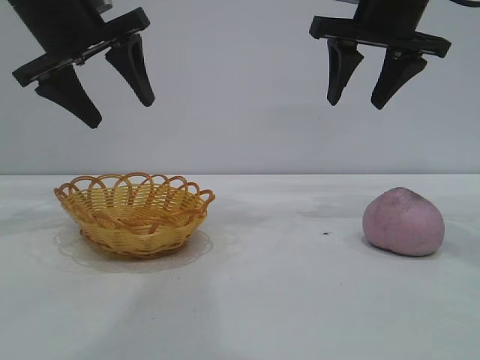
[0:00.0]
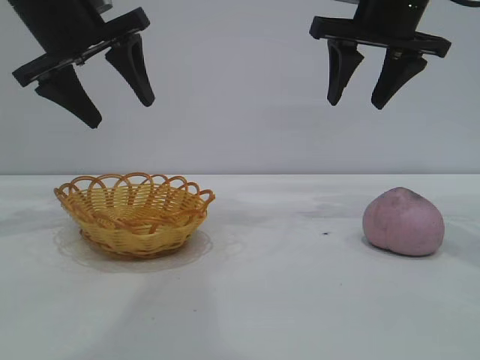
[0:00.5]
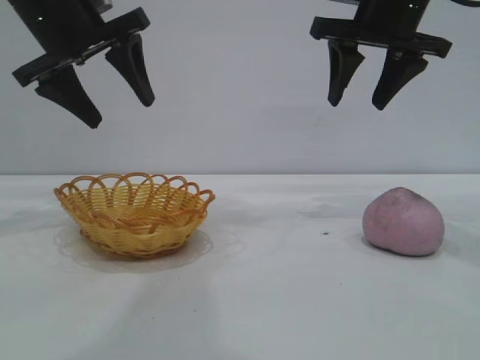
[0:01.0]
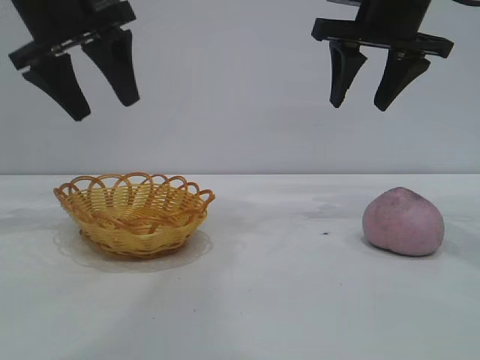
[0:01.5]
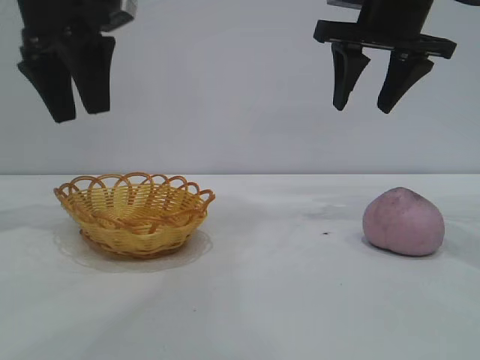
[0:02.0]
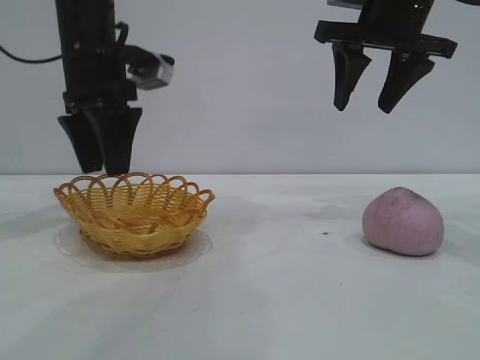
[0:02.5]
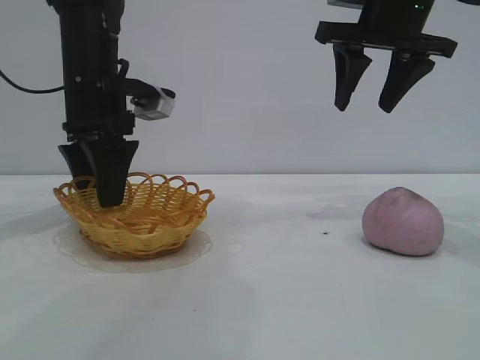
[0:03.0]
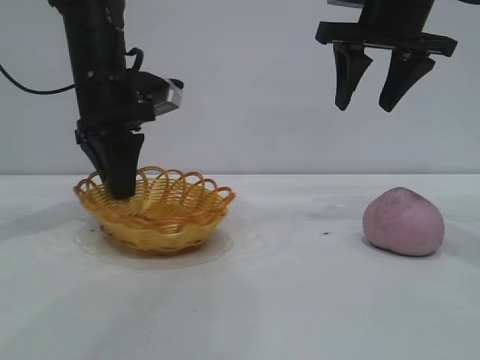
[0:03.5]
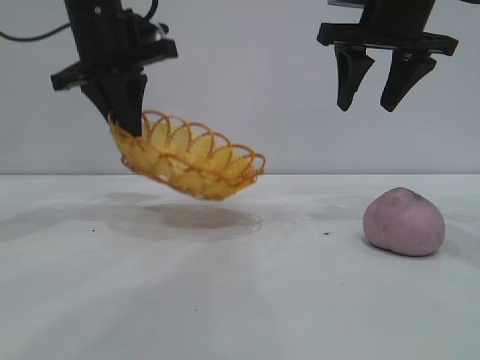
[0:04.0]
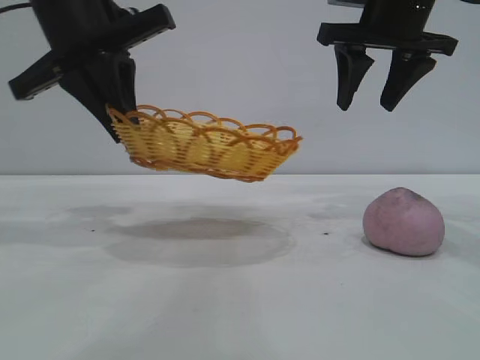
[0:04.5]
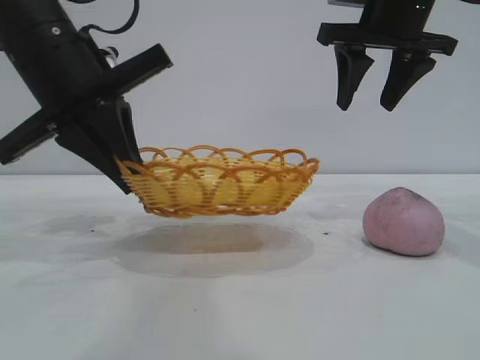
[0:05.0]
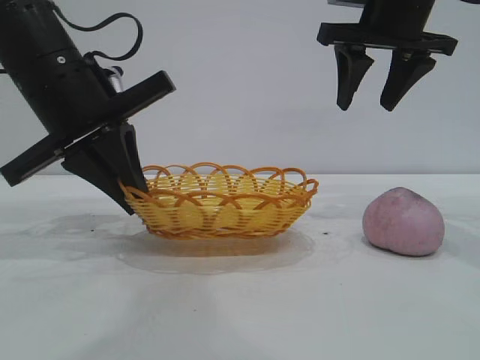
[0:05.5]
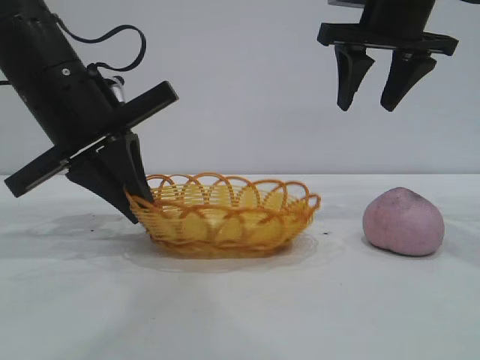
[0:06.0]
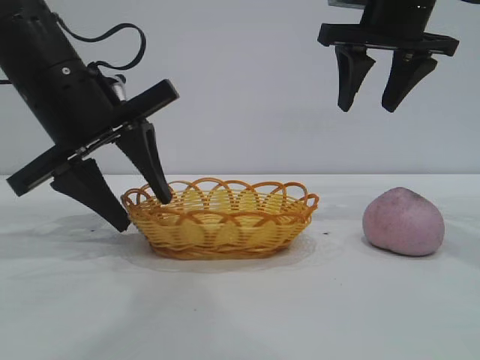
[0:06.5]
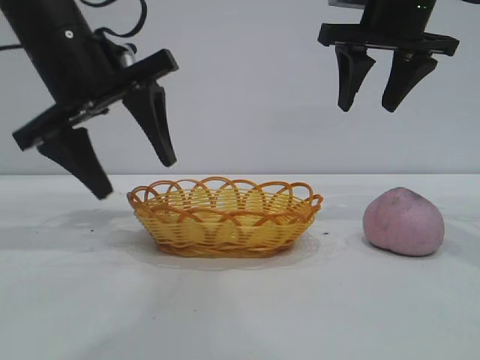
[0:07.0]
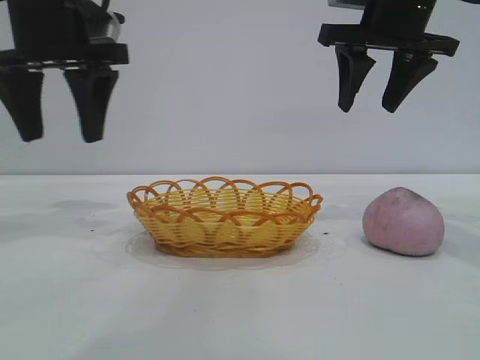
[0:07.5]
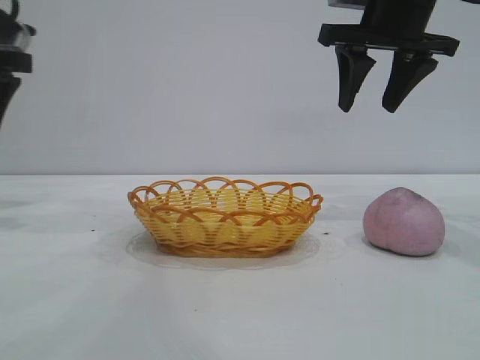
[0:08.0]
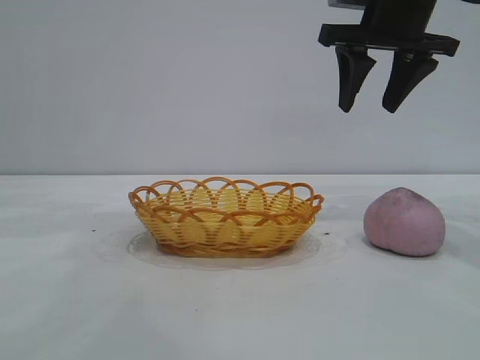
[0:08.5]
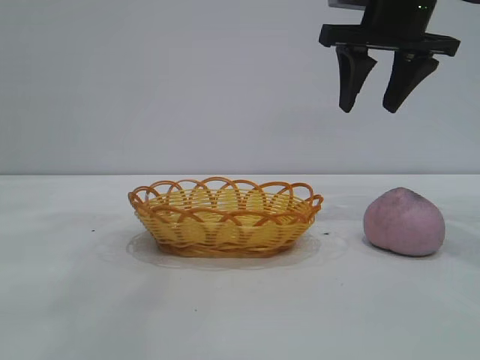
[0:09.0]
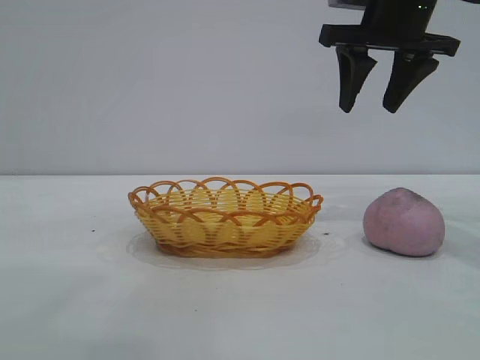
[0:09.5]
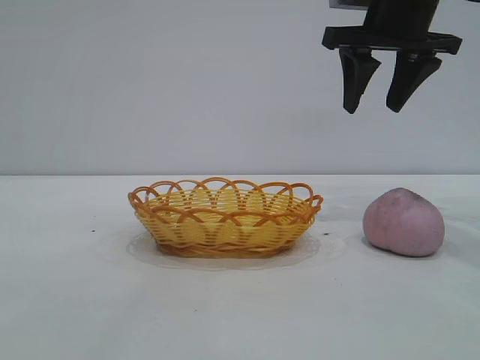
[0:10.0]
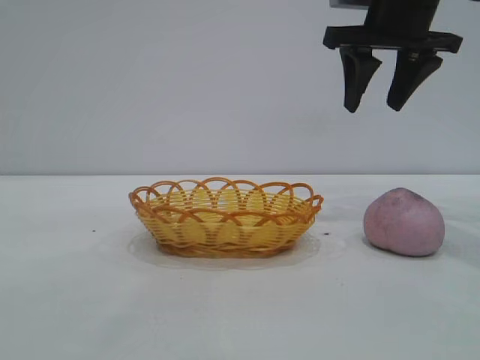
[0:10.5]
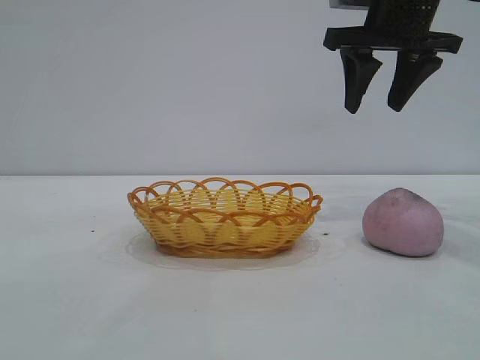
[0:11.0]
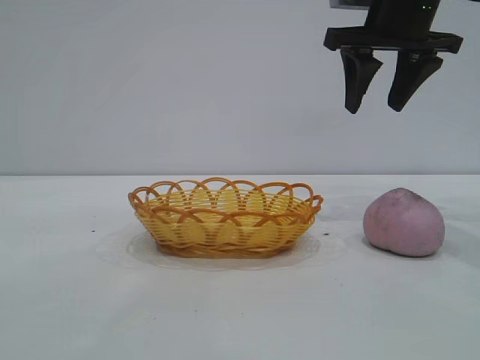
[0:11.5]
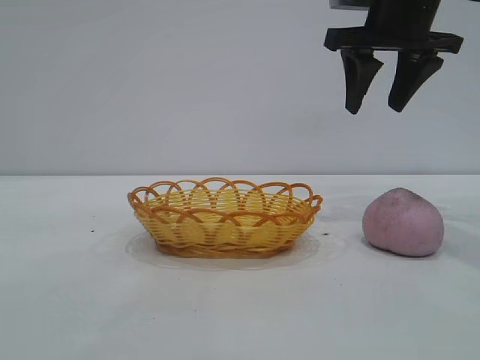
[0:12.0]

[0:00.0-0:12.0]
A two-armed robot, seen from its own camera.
Task of the whole recording: pick up the peach and put it into the basket.
Step, 0:00.0 to 0:07.0: Move the basket to the center of view.

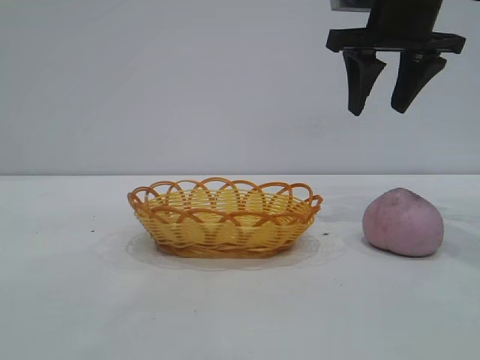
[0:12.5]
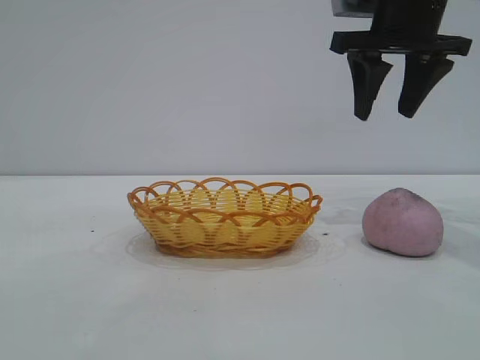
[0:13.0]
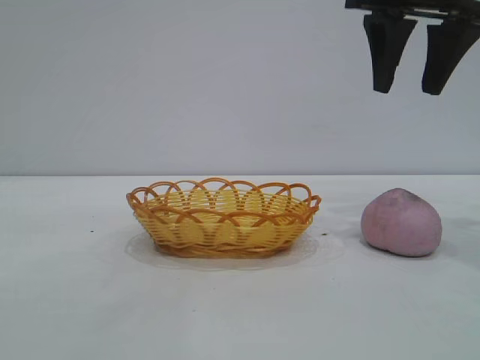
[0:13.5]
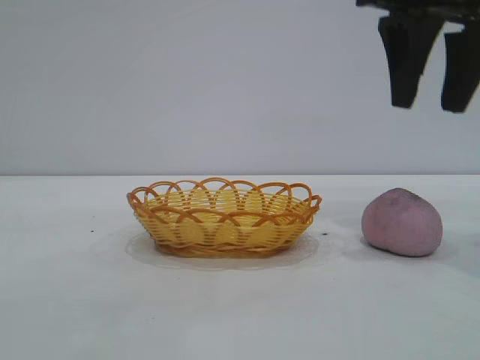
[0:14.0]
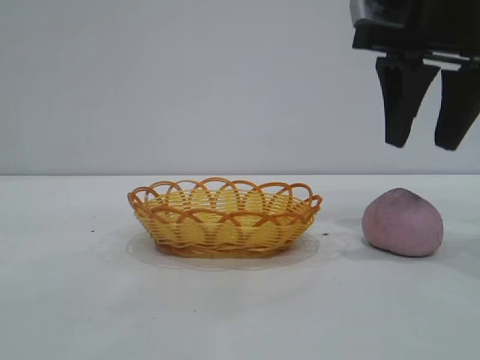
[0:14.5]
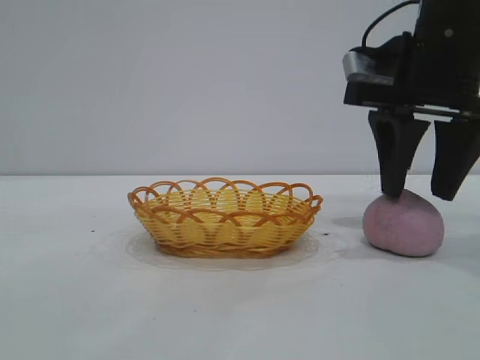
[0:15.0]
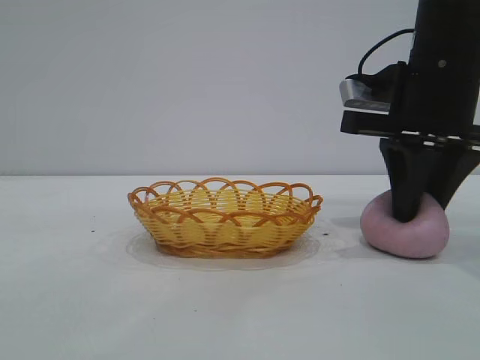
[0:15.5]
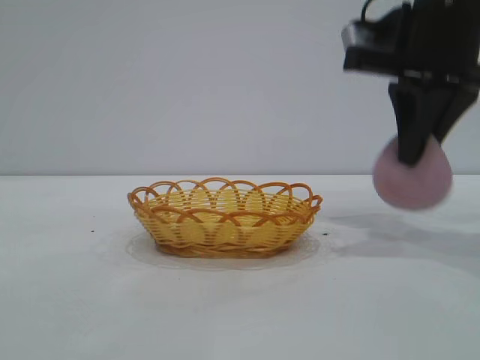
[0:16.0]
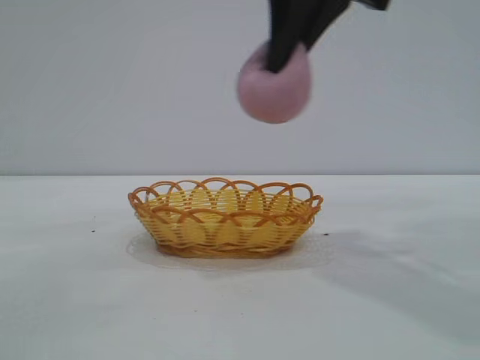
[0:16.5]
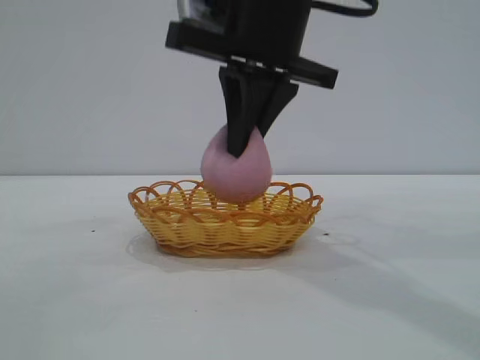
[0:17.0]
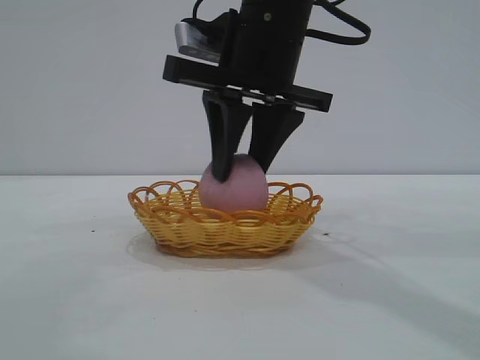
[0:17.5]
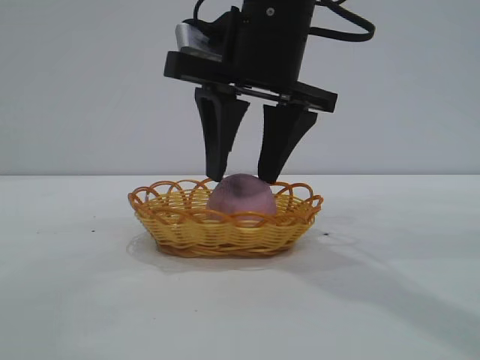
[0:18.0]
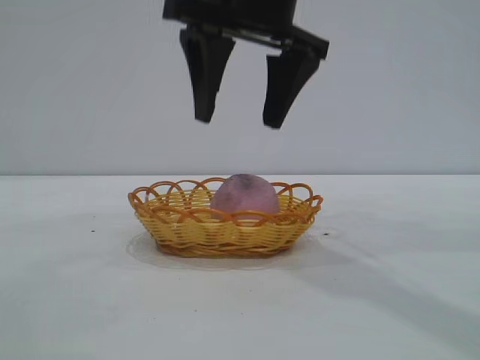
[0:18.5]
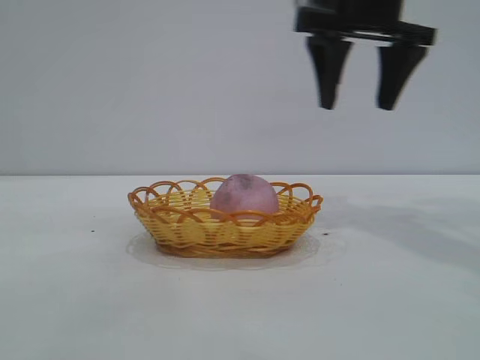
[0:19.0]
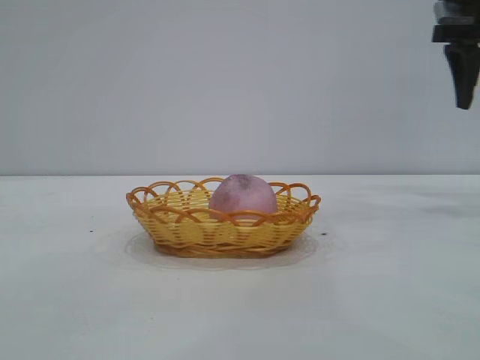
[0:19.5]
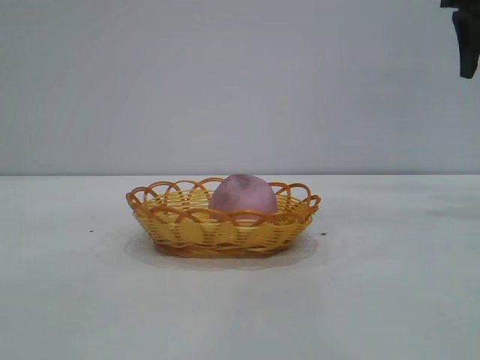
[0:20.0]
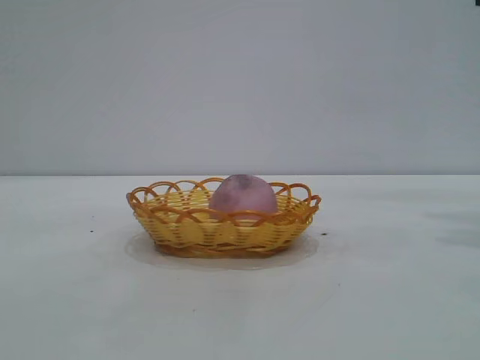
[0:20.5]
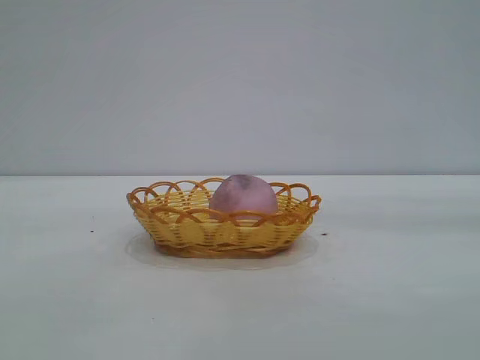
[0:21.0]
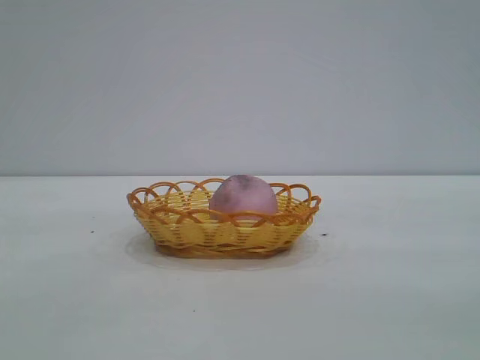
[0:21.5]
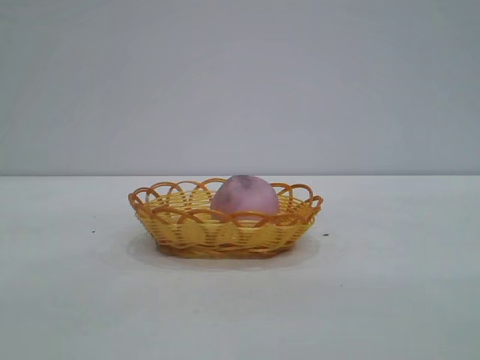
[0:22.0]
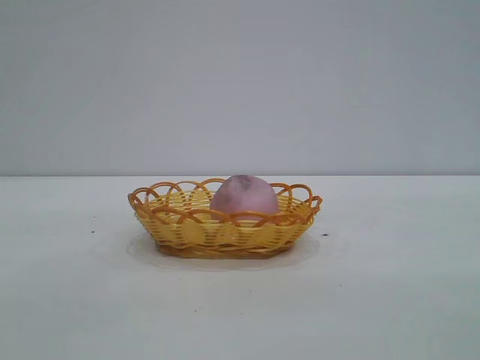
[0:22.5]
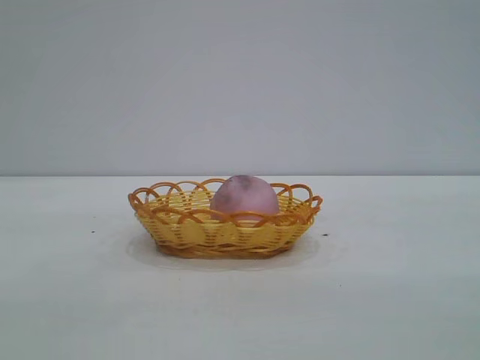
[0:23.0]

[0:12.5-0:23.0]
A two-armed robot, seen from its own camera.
Task of the whole recording: pick up the peach and put it into the basket.
Step, 0:12.5 to 0:15.5: Pick up the peach.
Step, 0:16.5 to 0:18.0: place the peach into the basket.

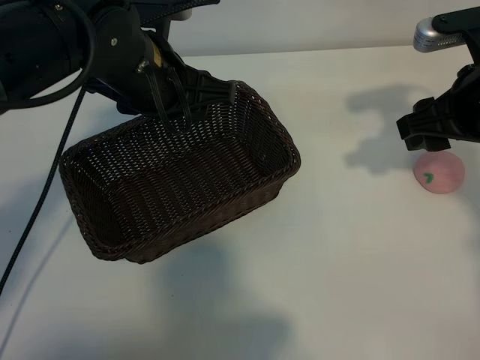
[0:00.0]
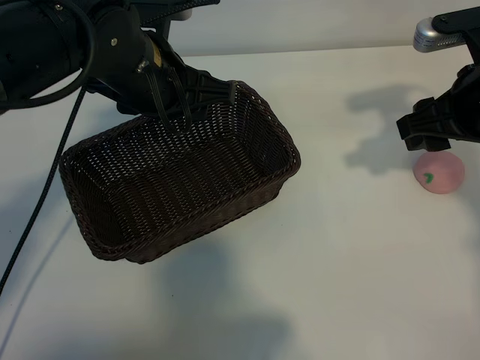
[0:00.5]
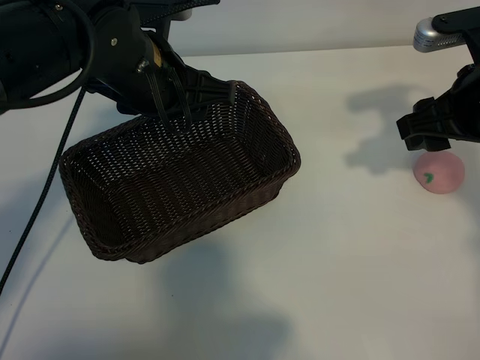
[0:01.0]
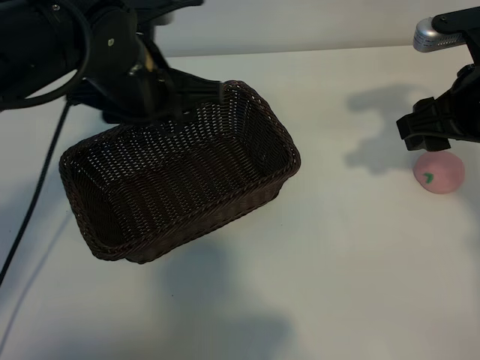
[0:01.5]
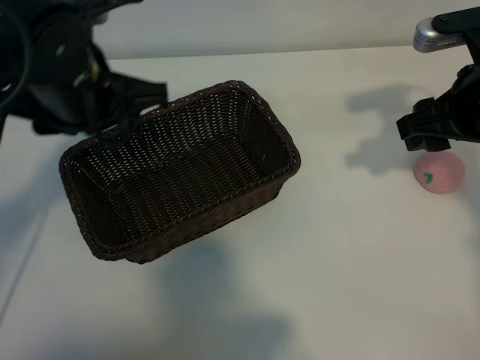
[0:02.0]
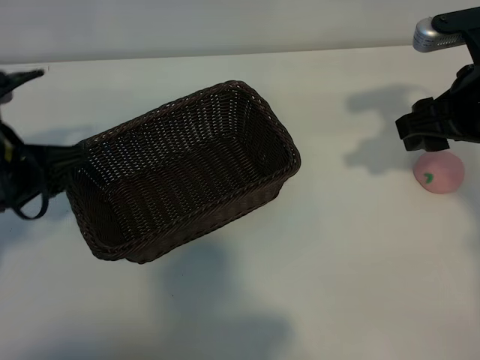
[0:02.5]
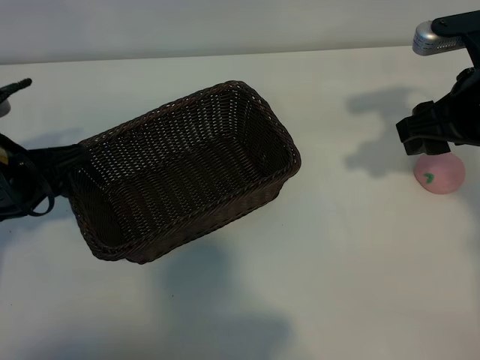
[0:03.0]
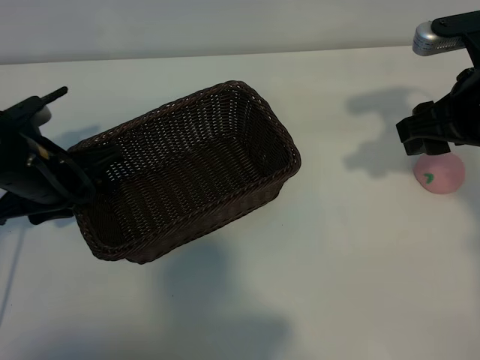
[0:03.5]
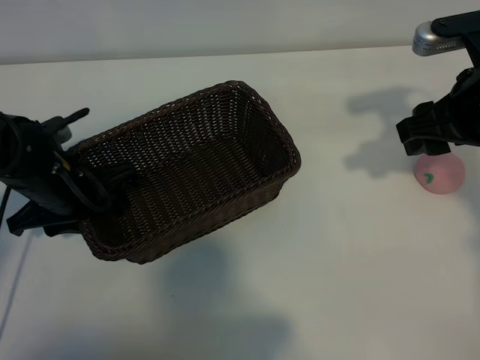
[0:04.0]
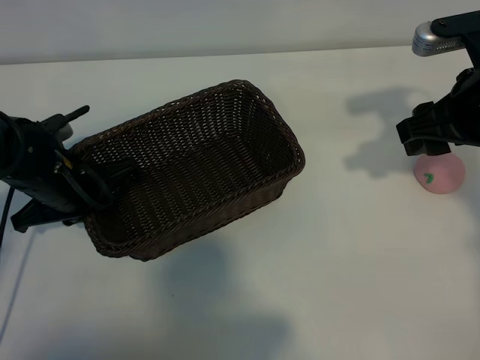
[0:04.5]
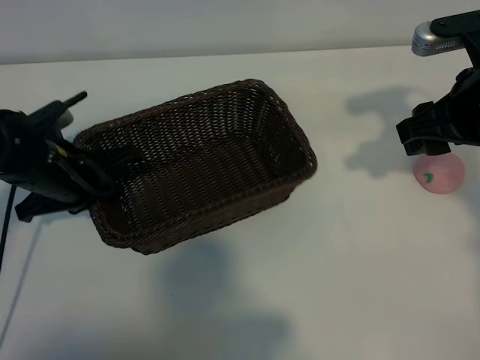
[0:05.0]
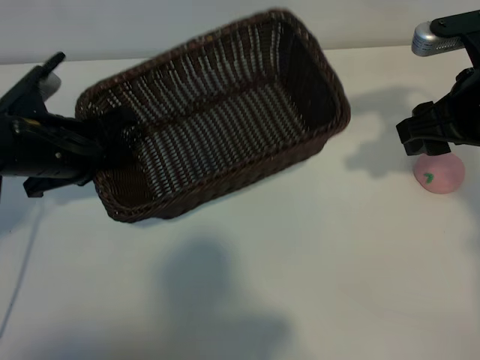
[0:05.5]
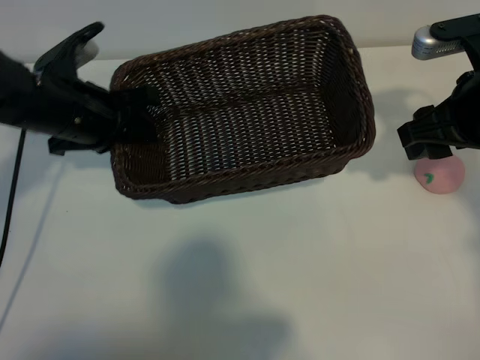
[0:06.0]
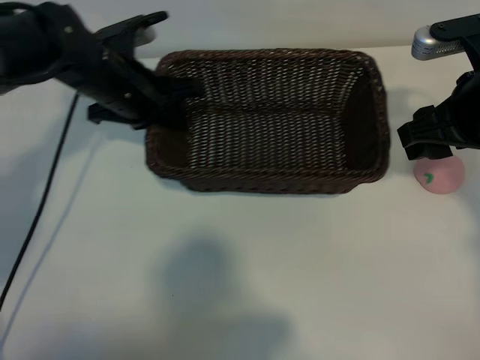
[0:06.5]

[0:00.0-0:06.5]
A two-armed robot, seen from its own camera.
Task of the whole recording: pick up the peach and put it into the basket.
Step, 0:01.5 to 0:04.5: Grasp the basket with left gripper.
